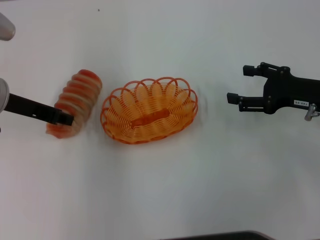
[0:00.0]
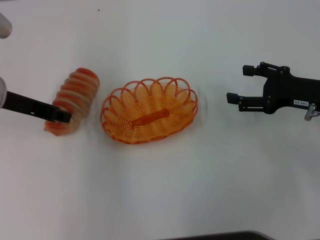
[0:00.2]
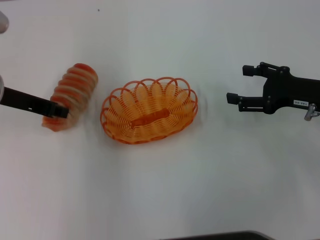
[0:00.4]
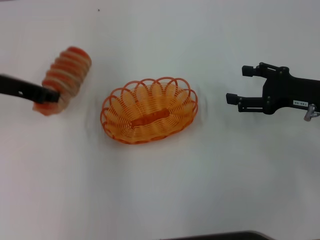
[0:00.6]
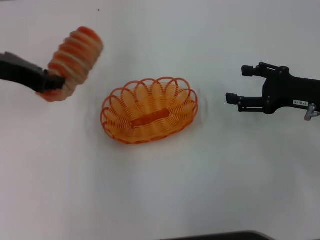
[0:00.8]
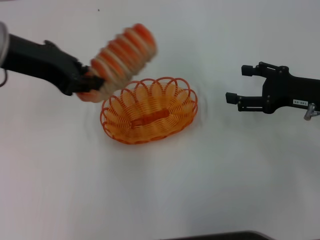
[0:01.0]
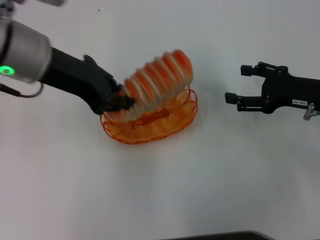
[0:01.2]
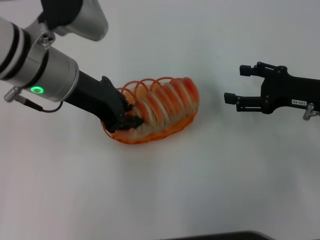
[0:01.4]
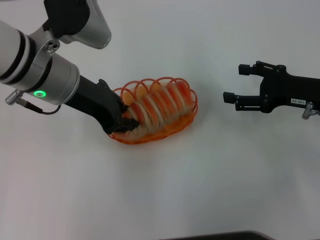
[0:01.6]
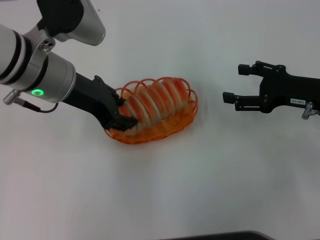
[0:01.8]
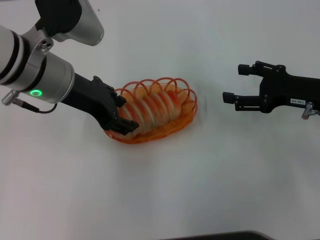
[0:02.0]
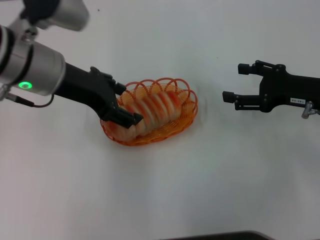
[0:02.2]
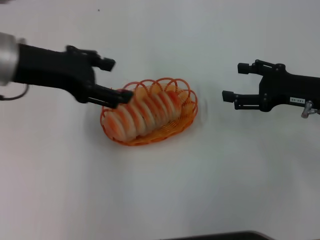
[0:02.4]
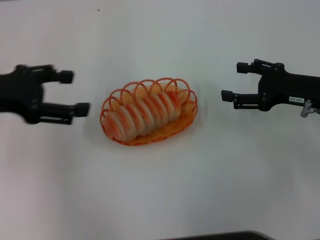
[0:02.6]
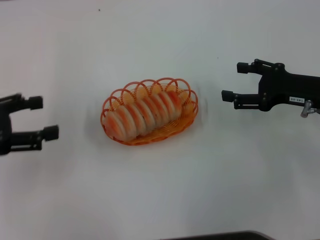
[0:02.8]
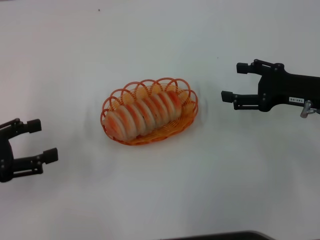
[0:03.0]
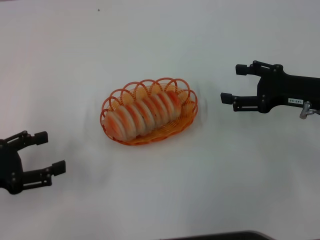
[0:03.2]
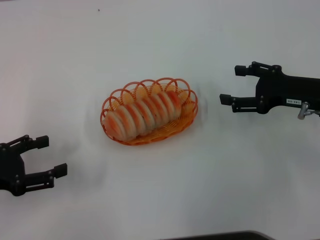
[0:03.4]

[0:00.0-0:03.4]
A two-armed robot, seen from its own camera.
Step, 0:00.8 to 0:02.4: Place the long bread into the basket with the left gripper.
0:00.0 to 0:01.6: The left gripper is displaced to the right by some 10 cm.
0:01.6 to 0:03.4: The left gripper shifts about 25 cm to the left, backward and downward, and opens.
